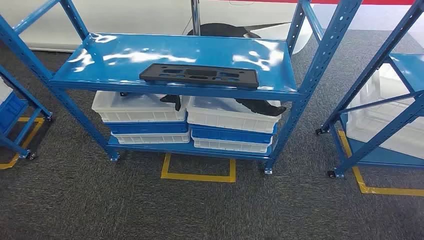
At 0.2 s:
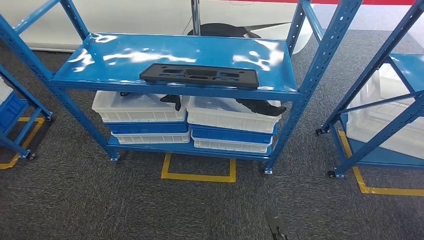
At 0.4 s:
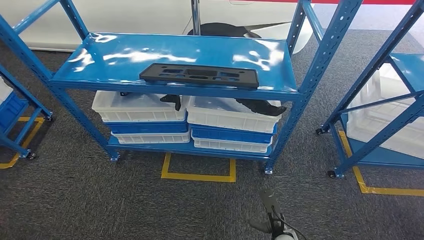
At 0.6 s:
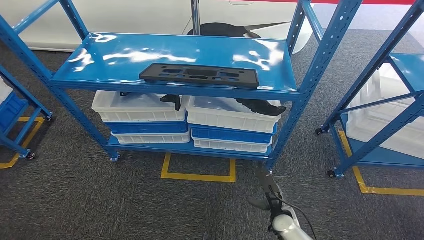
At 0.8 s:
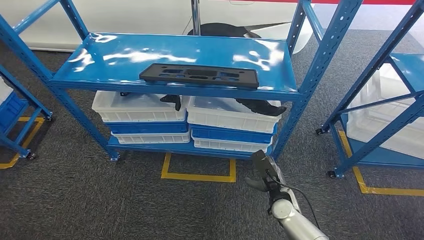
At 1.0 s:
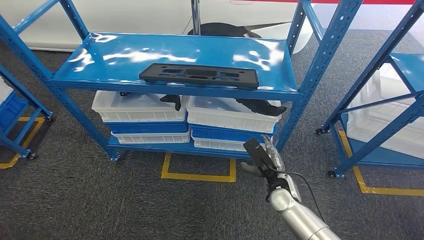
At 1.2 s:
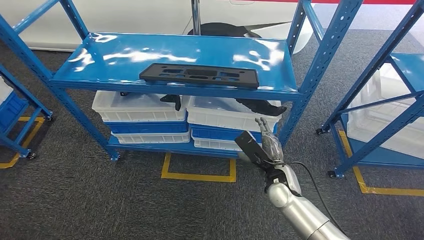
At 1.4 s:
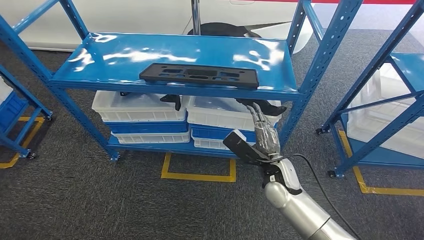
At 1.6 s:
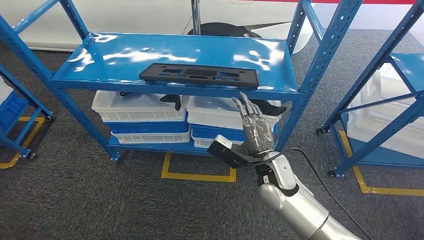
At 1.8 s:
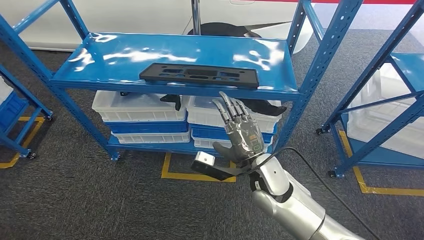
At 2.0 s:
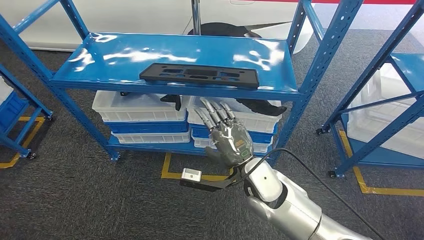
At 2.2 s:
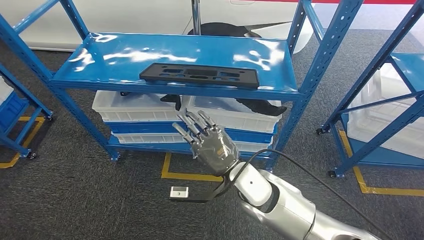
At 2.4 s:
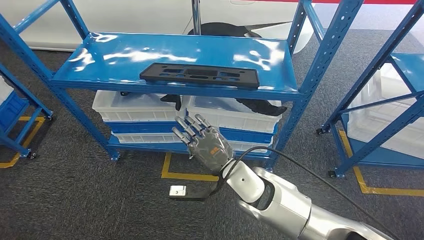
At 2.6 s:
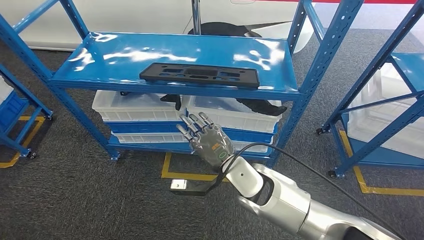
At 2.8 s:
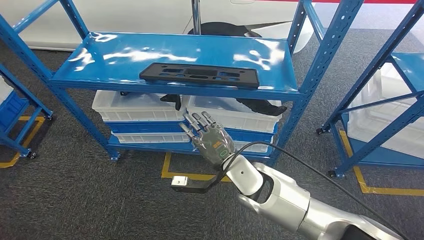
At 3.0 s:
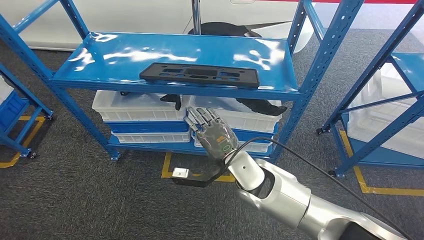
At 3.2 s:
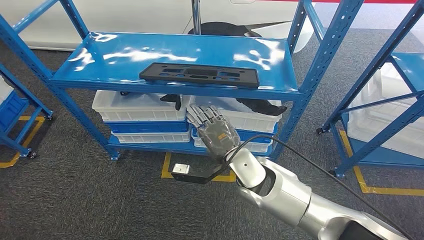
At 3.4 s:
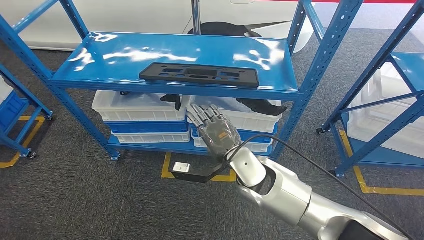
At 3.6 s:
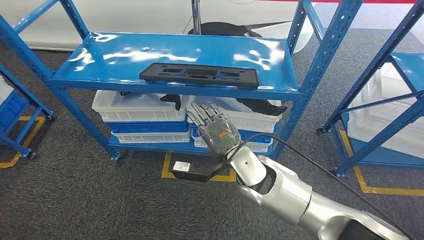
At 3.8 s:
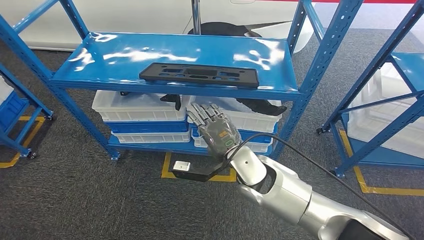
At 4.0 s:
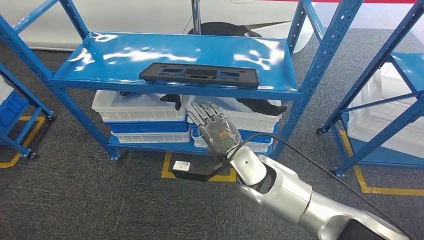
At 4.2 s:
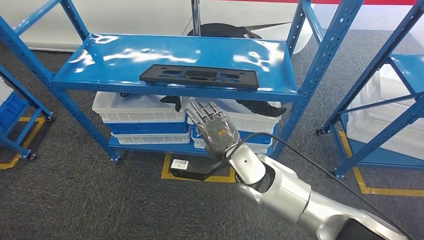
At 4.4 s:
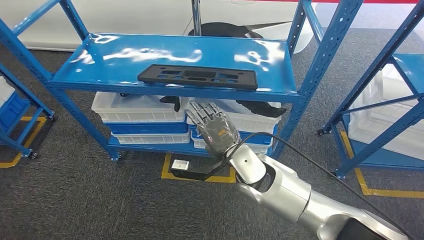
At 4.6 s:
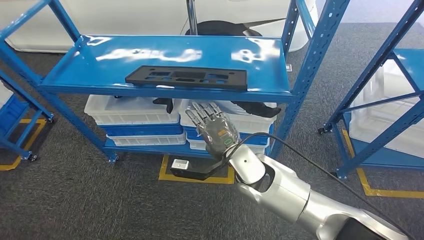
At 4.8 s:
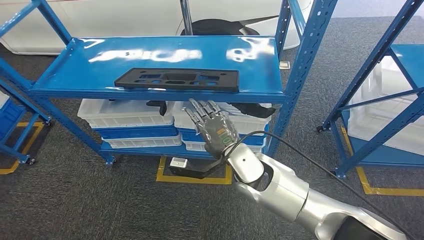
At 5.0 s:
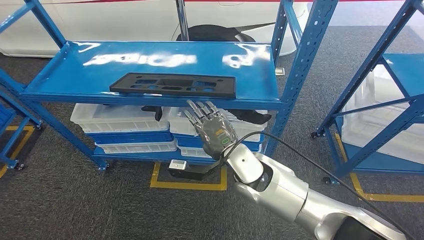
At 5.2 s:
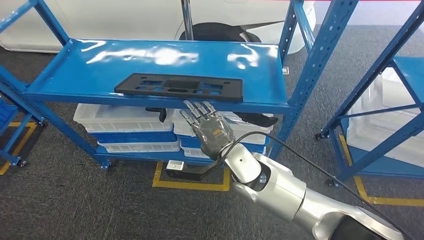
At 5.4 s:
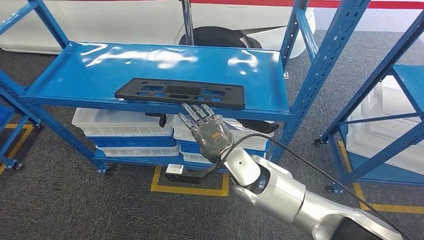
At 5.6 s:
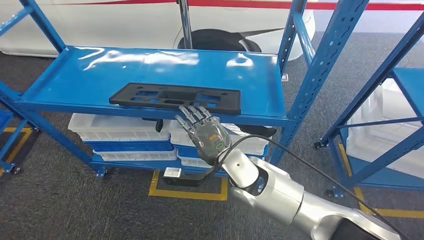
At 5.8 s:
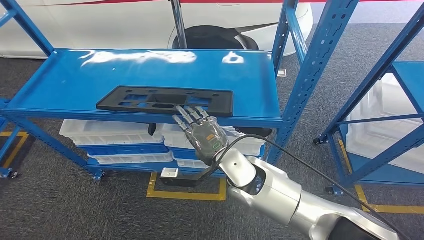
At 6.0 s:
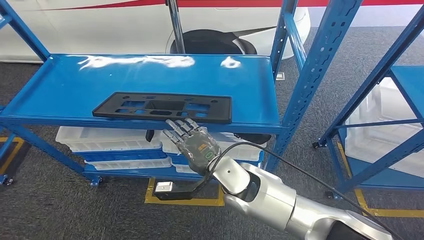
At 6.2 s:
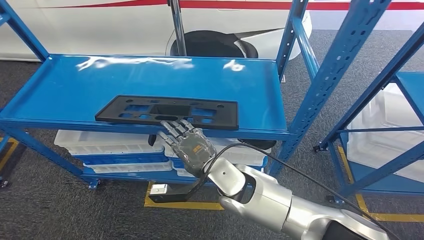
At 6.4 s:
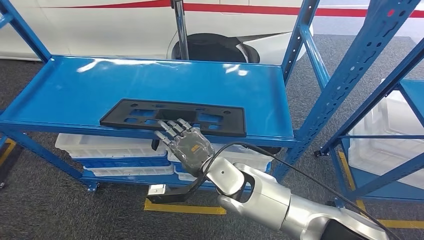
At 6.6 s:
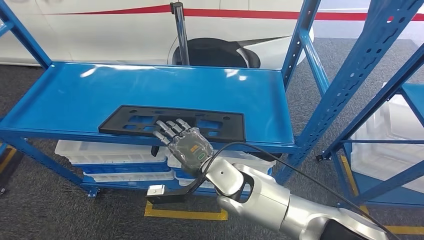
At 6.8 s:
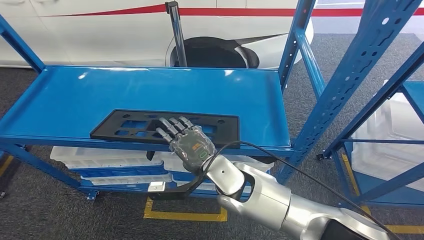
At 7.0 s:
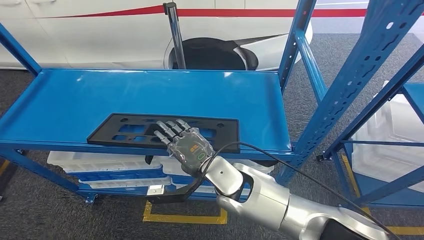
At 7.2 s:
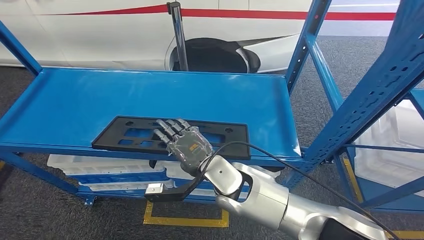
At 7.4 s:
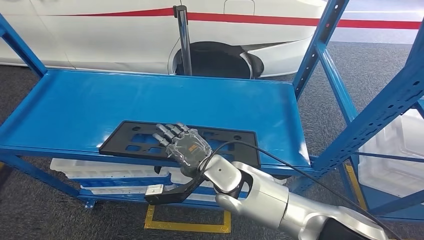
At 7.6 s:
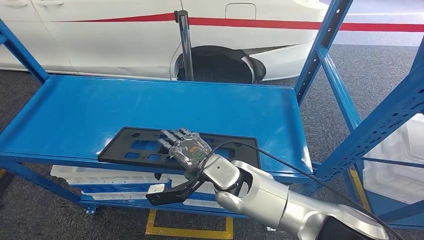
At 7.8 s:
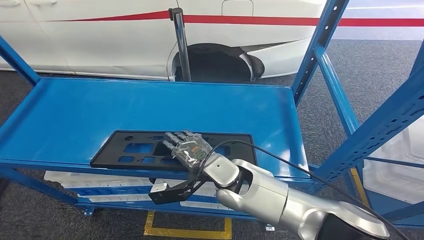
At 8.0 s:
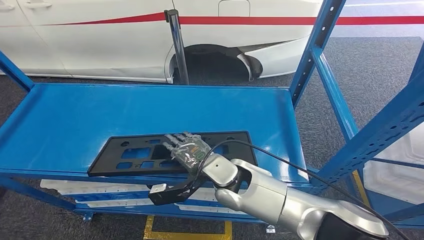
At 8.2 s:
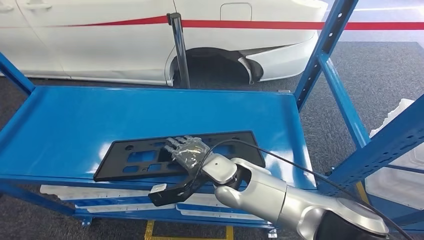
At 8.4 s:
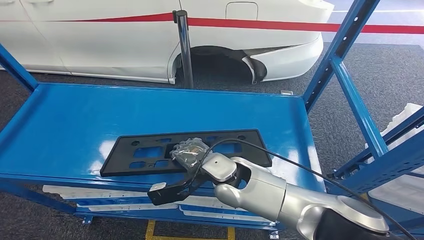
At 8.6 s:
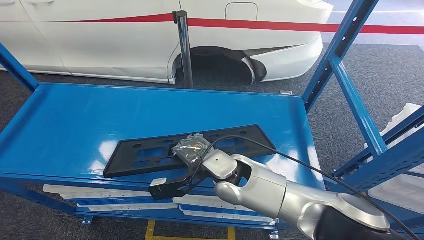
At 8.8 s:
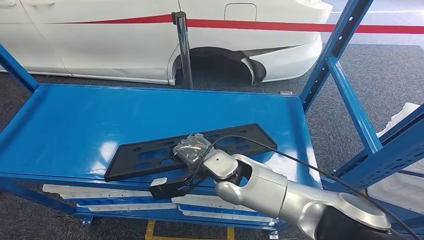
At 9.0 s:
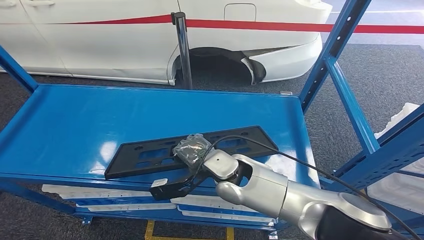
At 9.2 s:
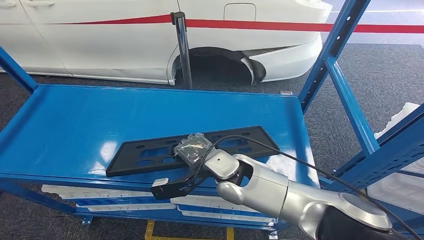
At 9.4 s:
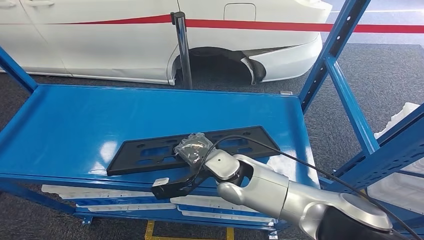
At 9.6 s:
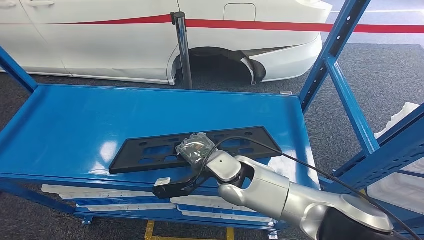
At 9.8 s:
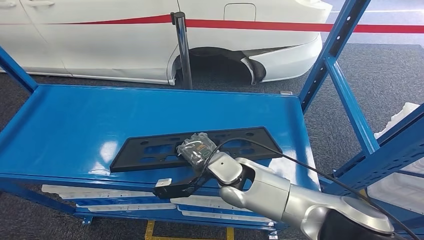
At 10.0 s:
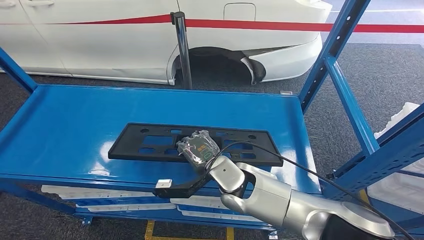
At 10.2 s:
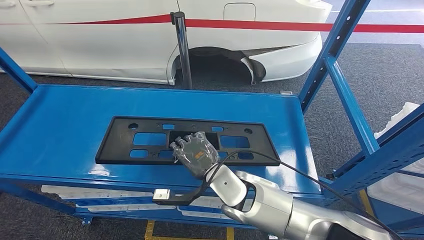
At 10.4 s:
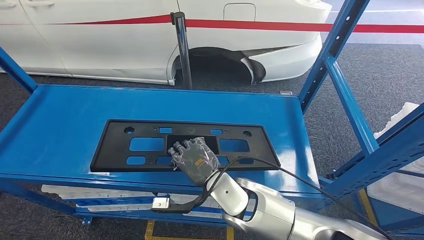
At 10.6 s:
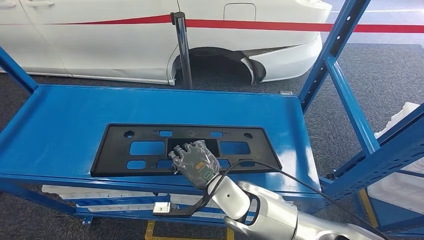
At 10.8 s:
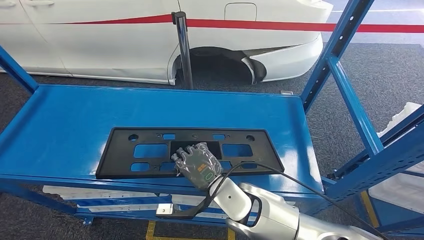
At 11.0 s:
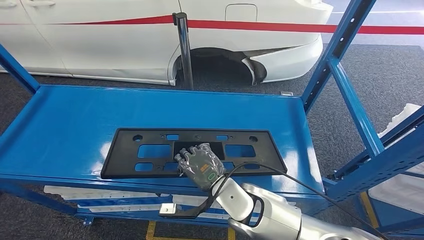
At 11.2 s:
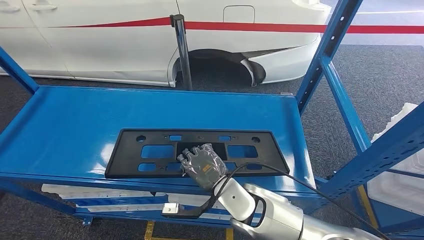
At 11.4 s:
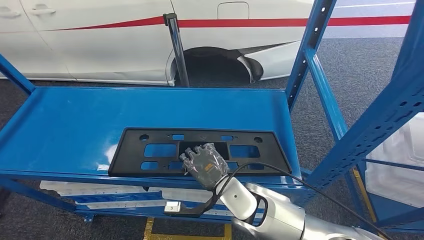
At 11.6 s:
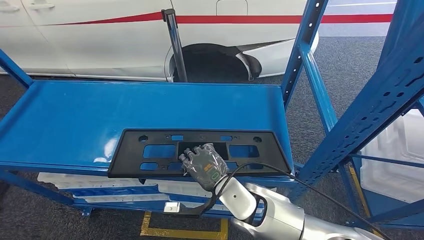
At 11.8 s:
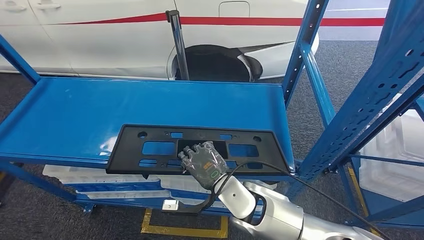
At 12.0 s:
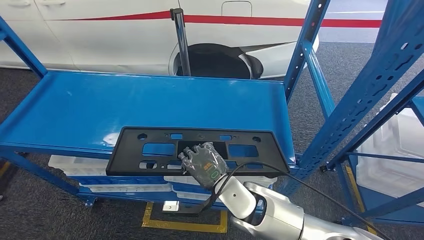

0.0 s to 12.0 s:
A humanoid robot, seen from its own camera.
Step, 0.0 to 11.0 s: Pick up the large material from the shelf.
1.6 to 3.0 s: The right hand travels to the left by approximately 5 cm.
3.0 to 4.4 s: The hands move only a little.

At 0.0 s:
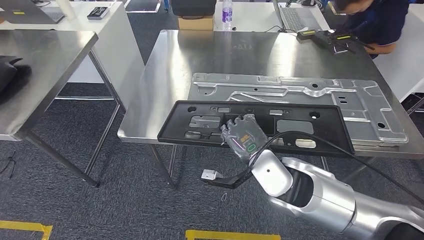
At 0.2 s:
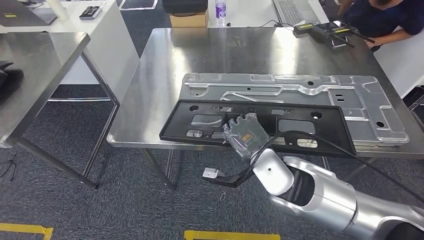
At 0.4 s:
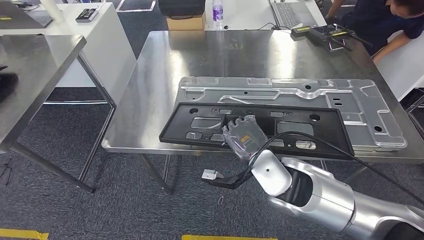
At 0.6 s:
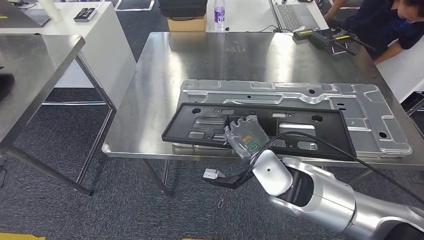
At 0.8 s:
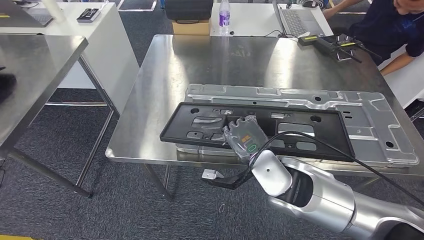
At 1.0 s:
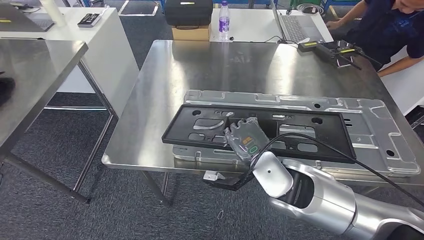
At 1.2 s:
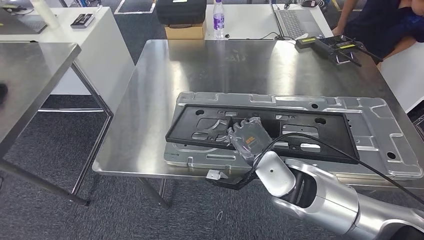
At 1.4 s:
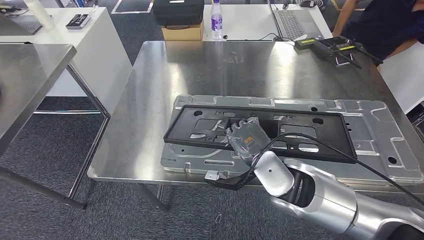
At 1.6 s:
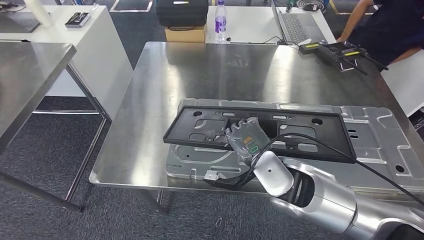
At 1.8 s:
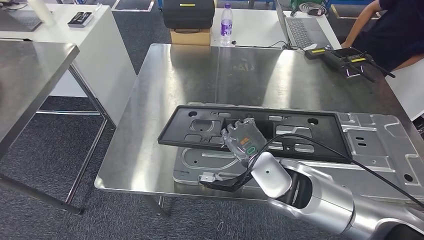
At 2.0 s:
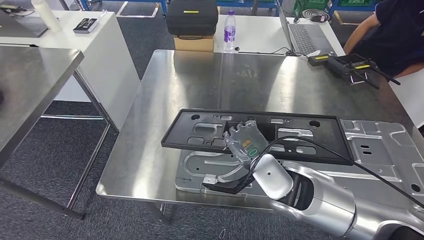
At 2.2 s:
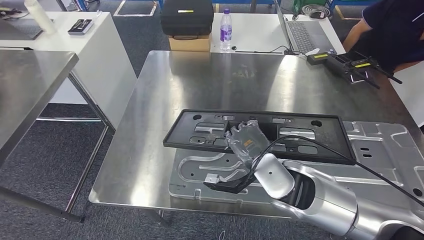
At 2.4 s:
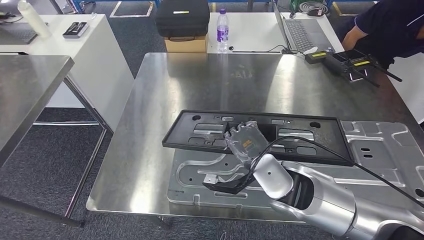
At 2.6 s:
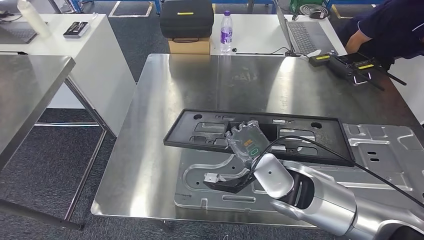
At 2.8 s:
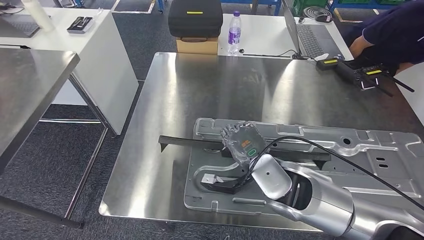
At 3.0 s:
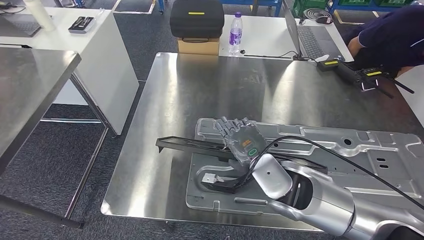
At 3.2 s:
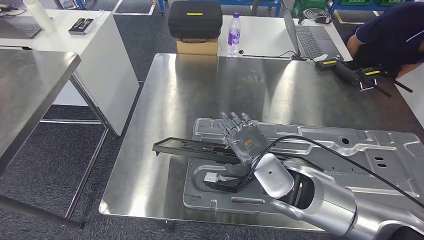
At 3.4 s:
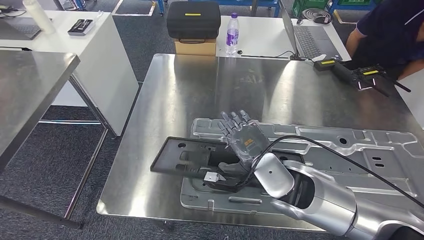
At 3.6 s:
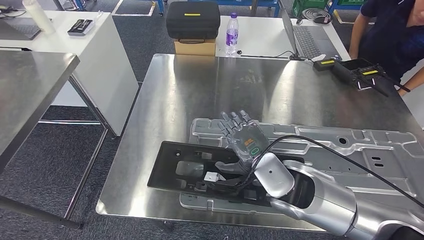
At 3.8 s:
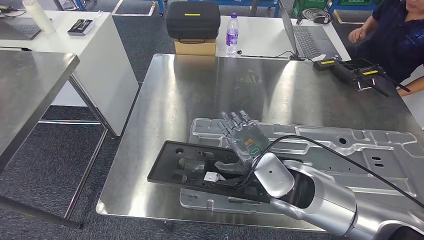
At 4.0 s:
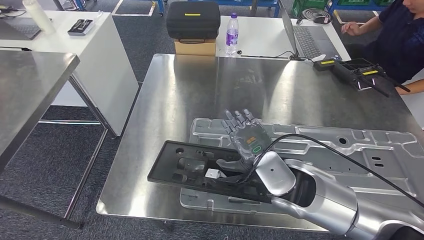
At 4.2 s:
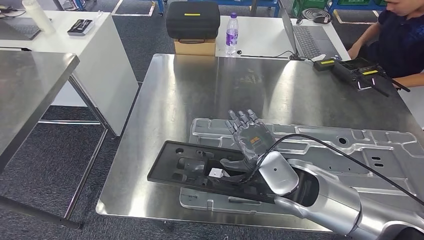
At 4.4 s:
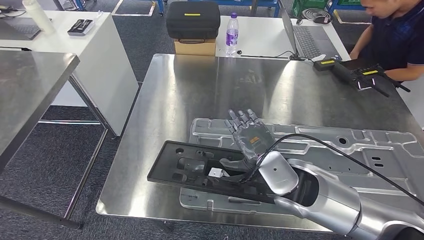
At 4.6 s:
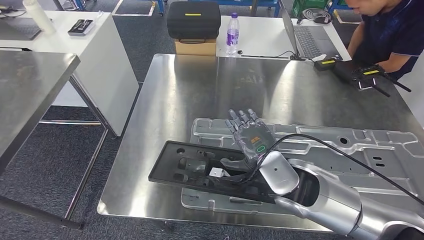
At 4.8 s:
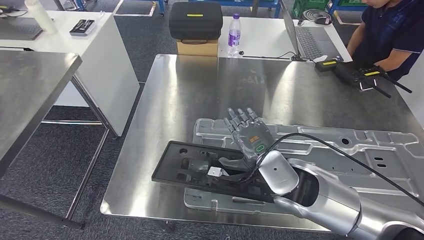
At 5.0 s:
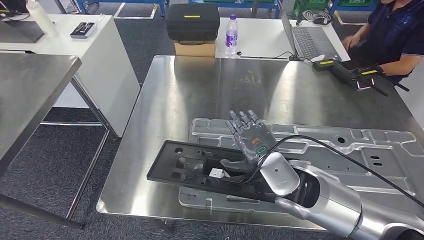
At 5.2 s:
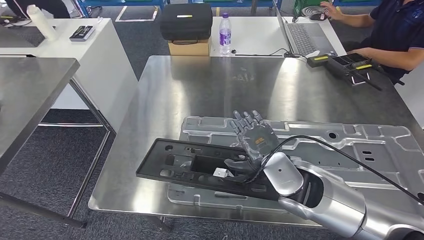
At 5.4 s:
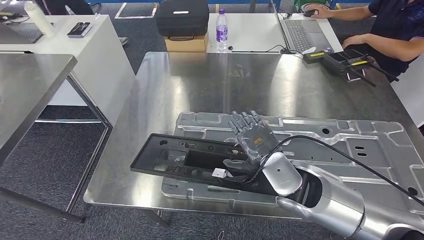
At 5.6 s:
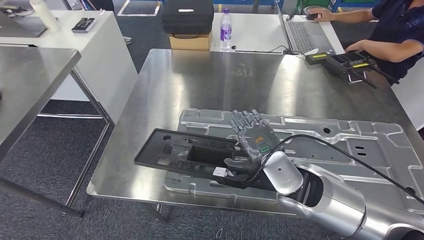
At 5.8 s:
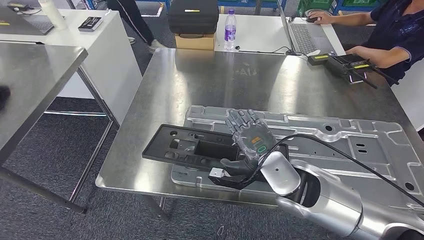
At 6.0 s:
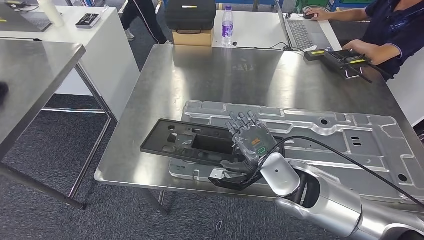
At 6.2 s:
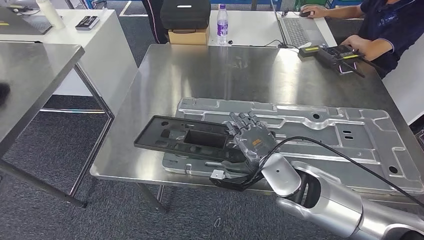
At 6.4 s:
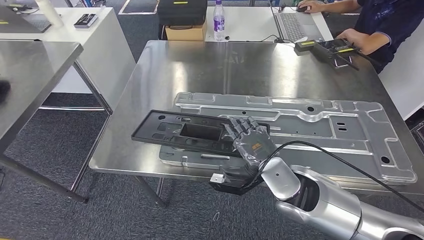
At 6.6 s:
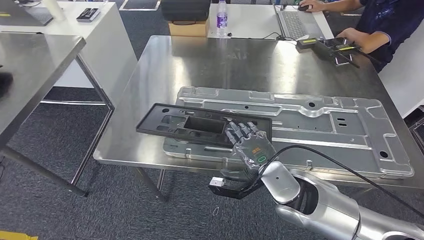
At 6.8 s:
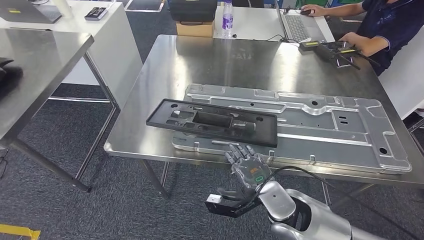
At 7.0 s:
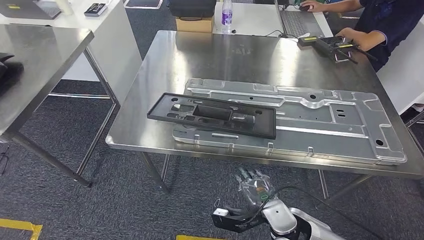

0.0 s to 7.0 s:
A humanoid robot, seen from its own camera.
Step, 2.0 to 5.4 s: Insert the large material into the corresponding slot on the workbench.
